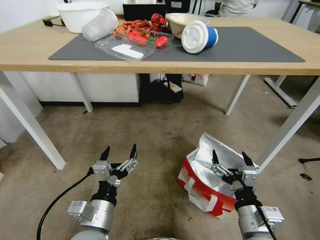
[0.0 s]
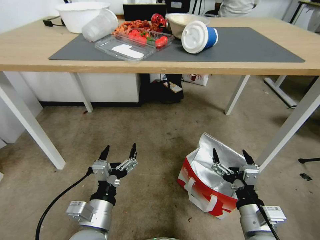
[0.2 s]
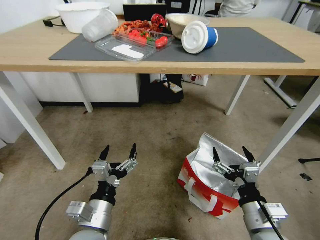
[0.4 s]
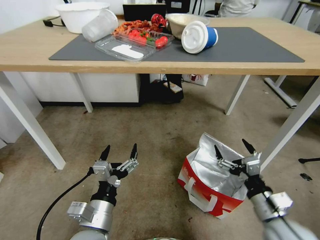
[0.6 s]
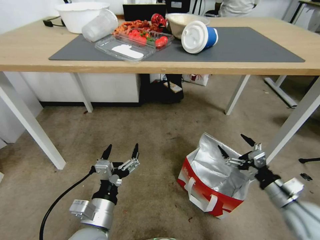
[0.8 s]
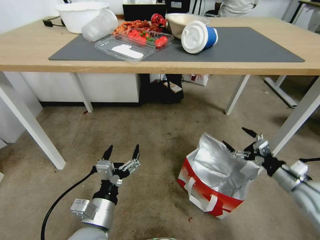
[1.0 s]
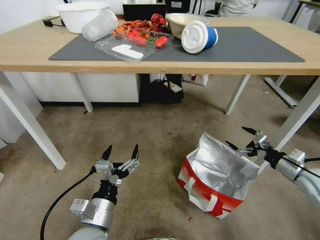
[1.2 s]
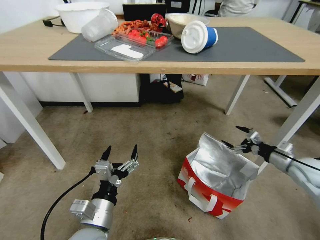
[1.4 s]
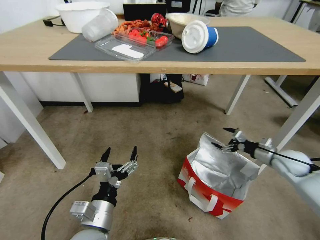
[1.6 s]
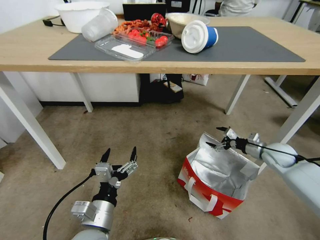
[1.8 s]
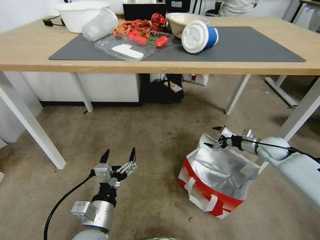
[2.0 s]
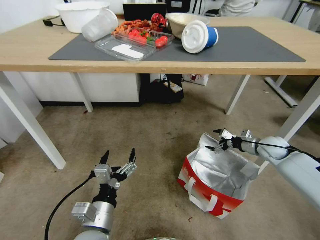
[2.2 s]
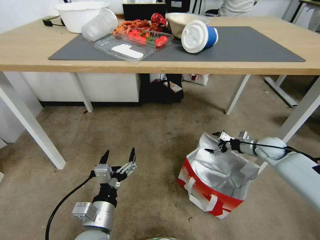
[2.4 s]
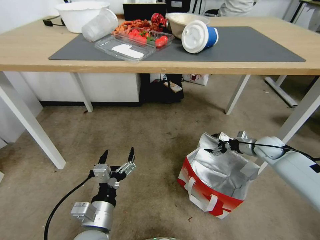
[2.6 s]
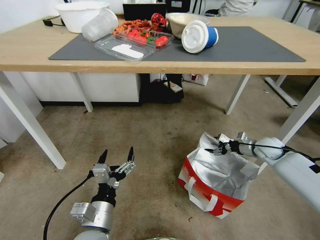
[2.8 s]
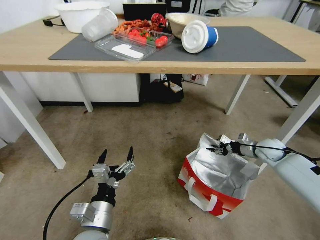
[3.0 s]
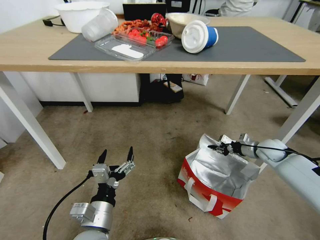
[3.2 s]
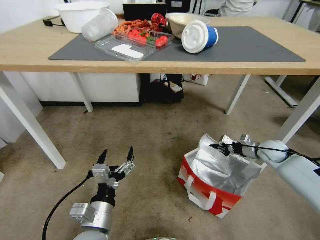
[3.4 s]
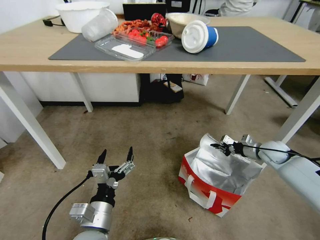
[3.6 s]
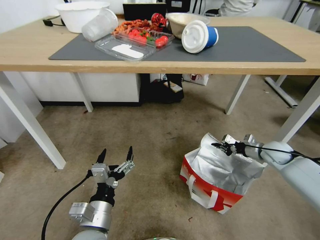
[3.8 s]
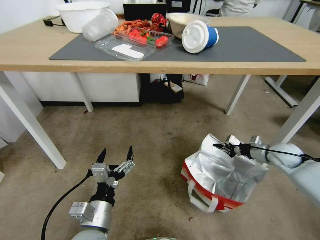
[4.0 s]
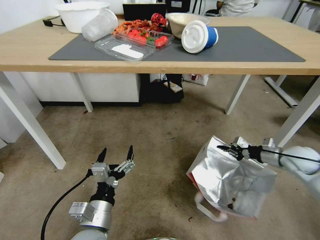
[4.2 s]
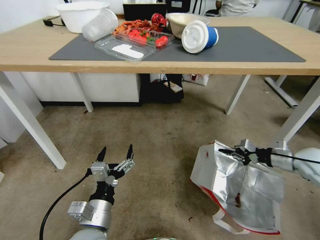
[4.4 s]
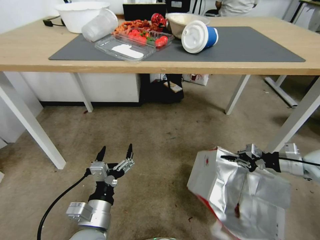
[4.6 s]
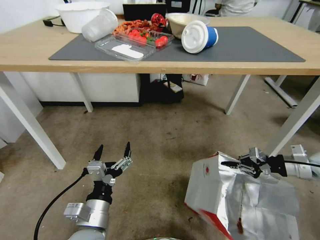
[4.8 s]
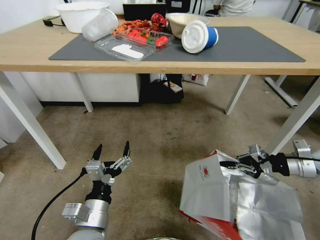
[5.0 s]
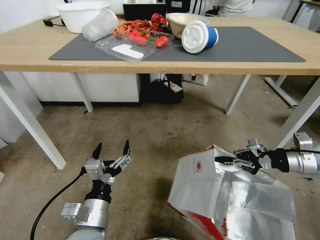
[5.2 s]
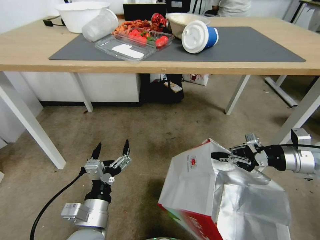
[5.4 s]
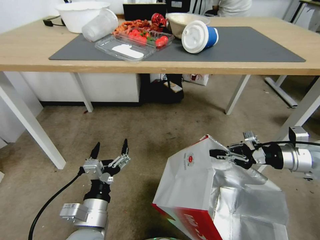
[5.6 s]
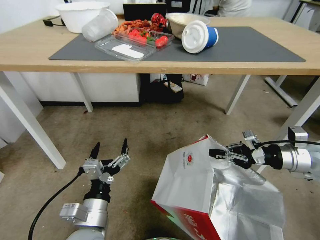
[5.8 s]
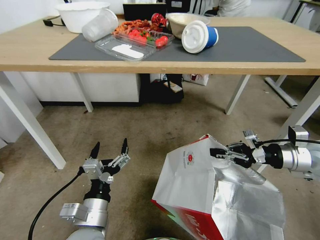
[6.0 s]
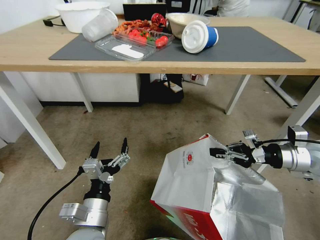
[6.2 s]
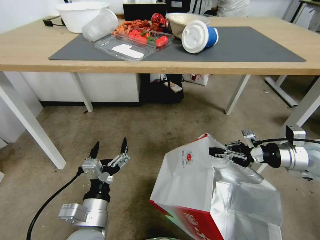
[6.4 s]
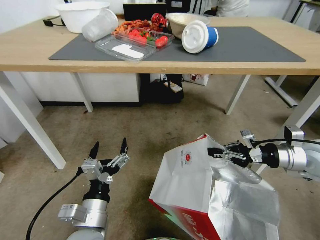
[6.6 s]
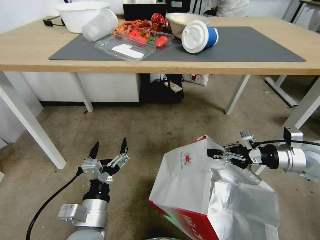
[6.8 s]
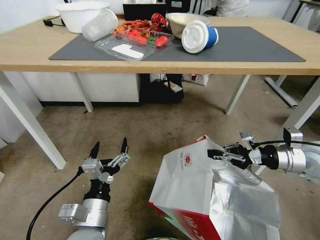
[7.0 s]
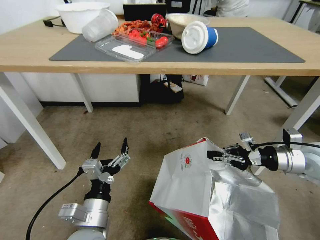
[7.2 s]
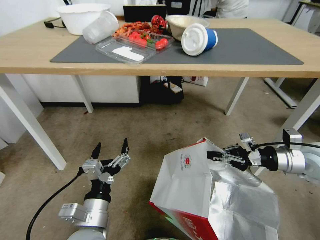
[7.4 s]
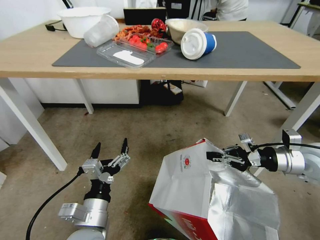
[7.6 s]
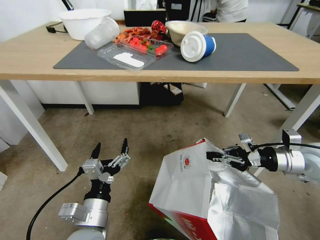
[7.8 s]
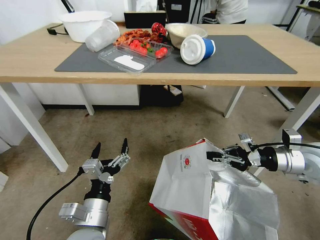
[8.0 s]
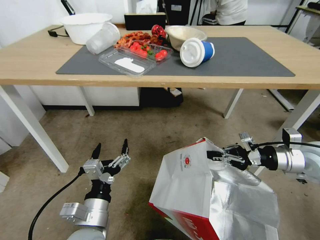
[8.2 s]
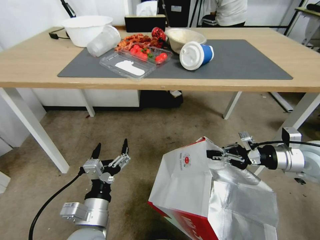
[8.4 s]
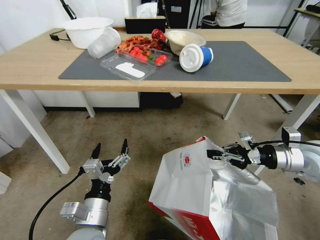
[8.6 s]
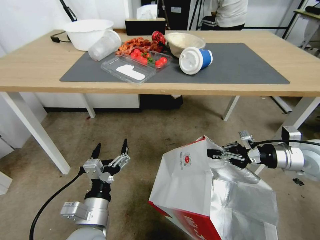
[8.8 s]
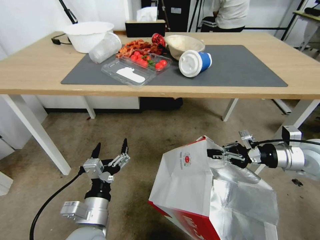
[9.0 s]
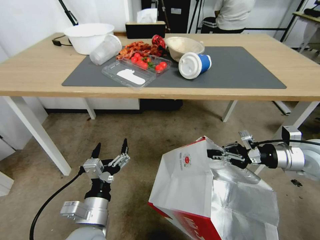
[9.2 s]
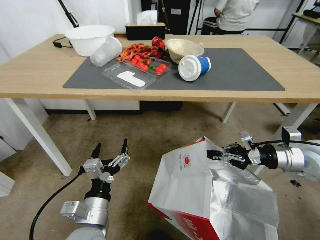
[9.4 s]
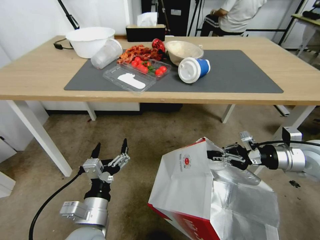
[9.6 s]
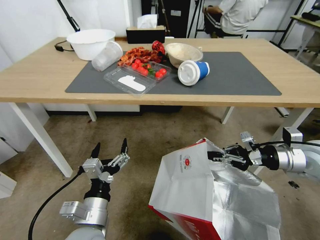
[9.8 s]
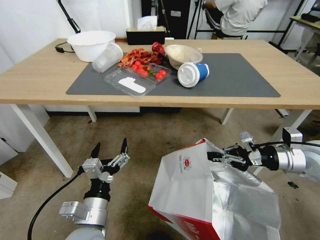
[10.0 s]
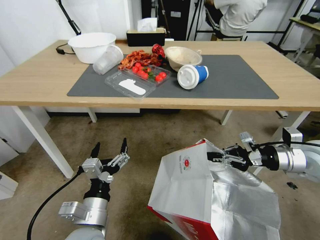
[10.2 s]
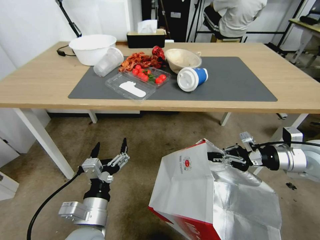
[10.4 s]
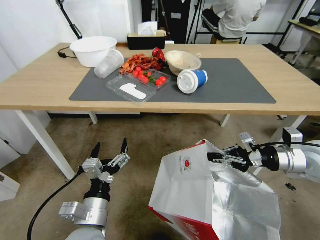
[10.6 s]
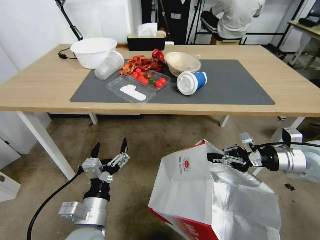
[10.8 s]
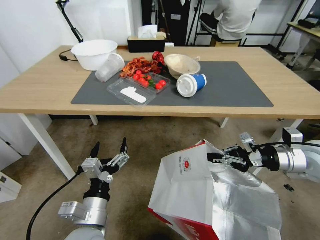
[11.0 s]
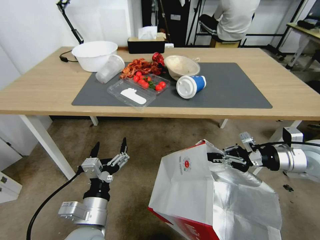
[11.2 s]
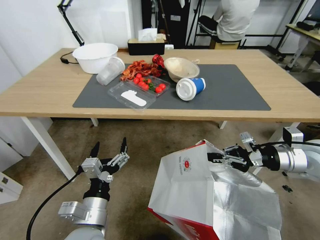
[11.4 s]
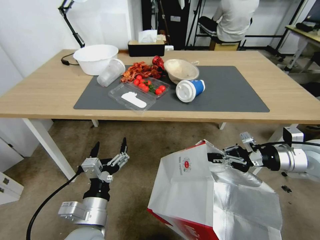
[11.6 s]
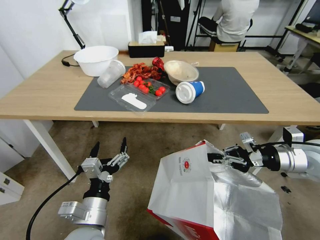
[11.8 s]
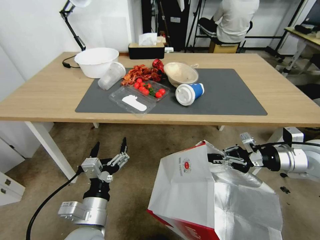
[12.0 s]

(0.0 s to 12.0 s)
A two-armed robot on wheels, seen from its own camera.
Task of the whole recording: Pick up the food delivery bag from the floor and place it on the table.
0.0 s - 1.6 s: The right gripper heads forward and to the right, covering some 35 cm.
1.6 s - 3.0 s: The right gripper is displaced forward by some 5 cm, and closes.
3.0 s - 4.4 s: The right gripper heads backward and upward, covering some 15 cm, and closes up.
4.4 s - 6.0 s: The right gripper travels upward and to the left by some 10 cm.

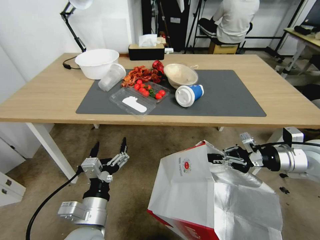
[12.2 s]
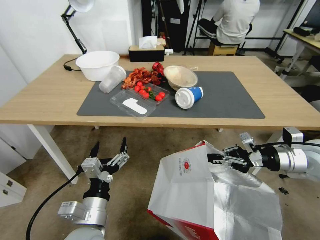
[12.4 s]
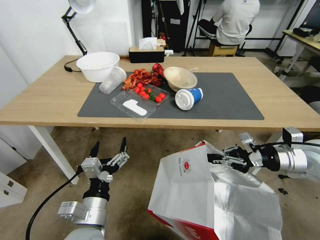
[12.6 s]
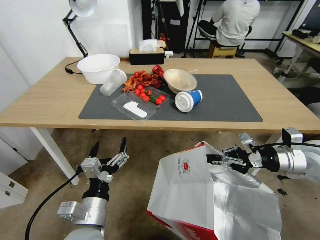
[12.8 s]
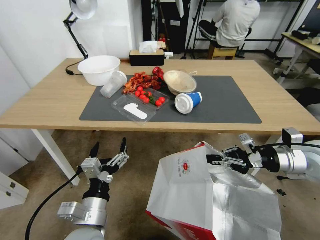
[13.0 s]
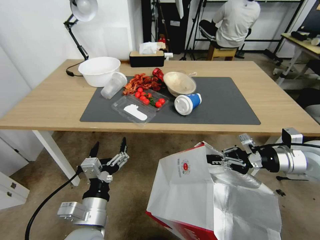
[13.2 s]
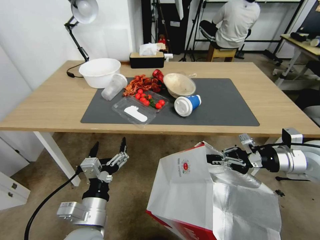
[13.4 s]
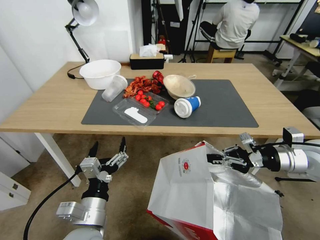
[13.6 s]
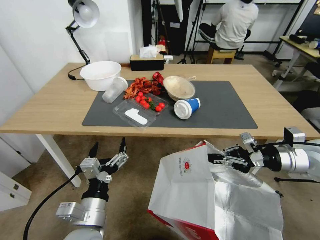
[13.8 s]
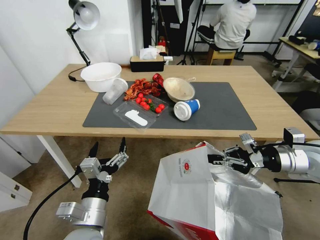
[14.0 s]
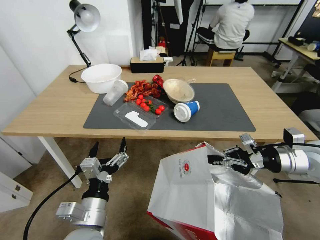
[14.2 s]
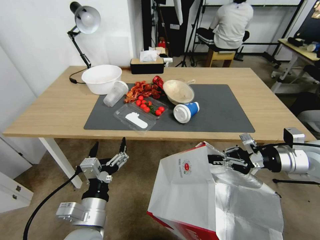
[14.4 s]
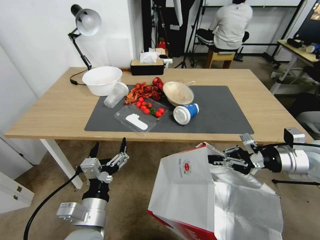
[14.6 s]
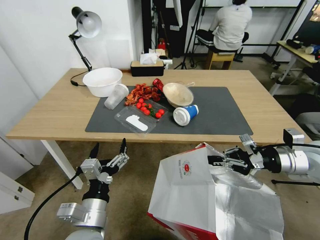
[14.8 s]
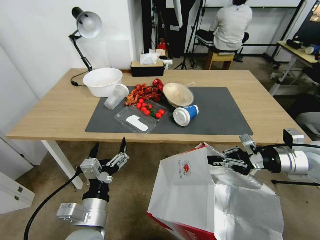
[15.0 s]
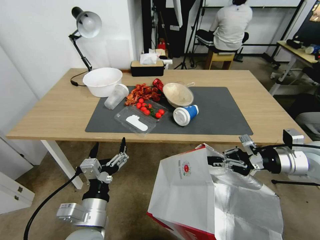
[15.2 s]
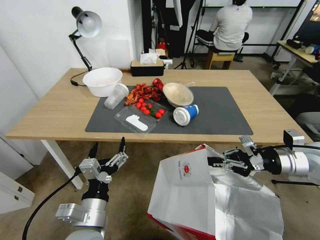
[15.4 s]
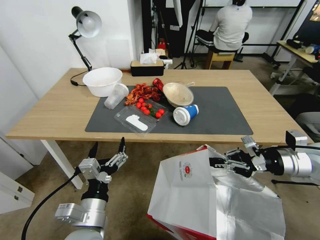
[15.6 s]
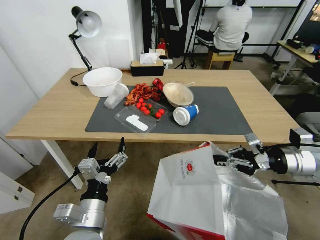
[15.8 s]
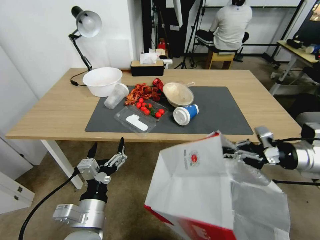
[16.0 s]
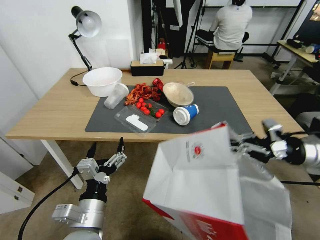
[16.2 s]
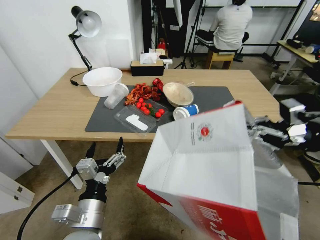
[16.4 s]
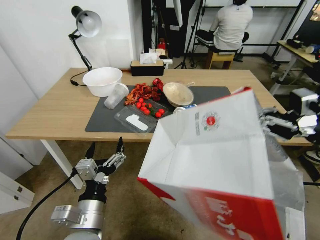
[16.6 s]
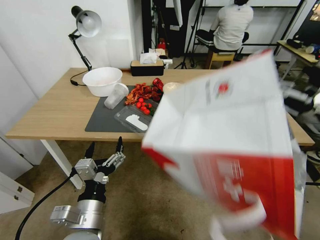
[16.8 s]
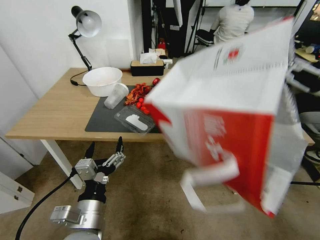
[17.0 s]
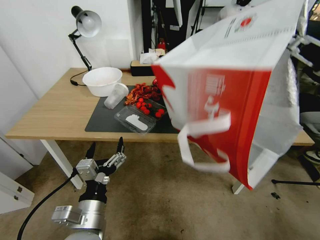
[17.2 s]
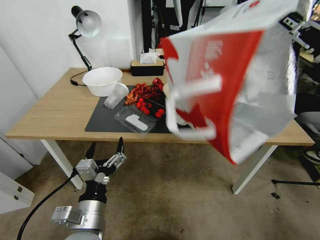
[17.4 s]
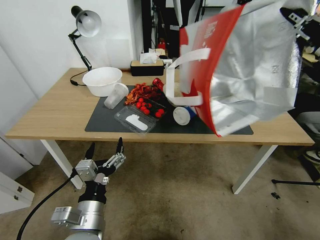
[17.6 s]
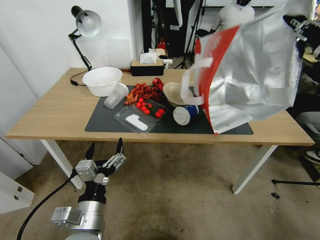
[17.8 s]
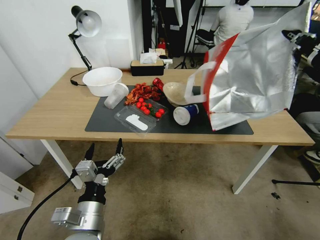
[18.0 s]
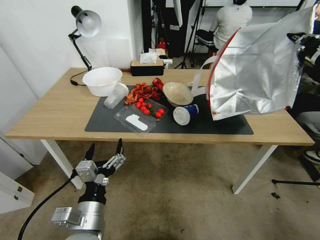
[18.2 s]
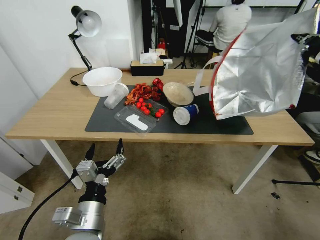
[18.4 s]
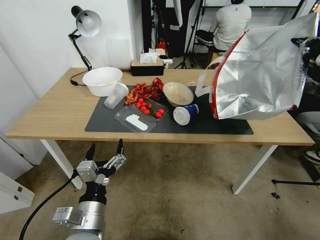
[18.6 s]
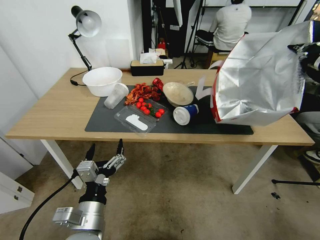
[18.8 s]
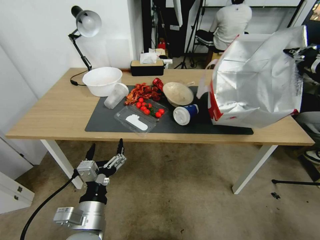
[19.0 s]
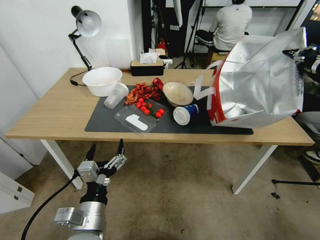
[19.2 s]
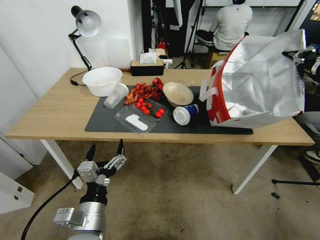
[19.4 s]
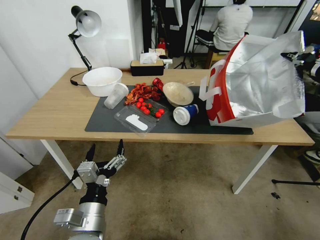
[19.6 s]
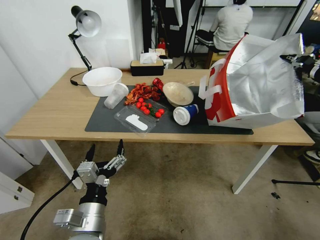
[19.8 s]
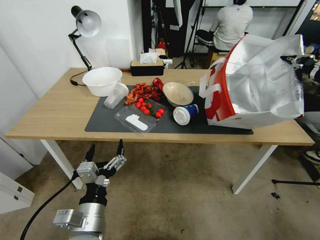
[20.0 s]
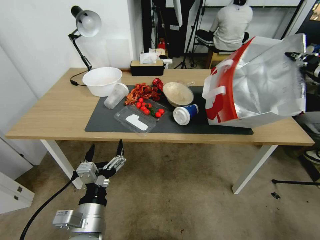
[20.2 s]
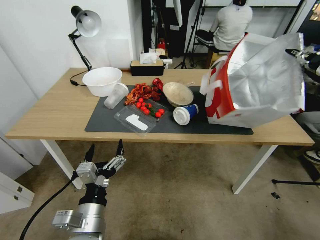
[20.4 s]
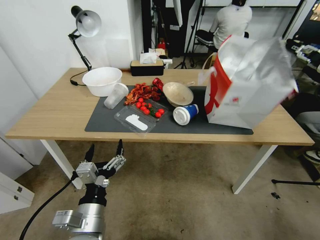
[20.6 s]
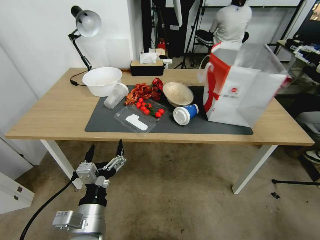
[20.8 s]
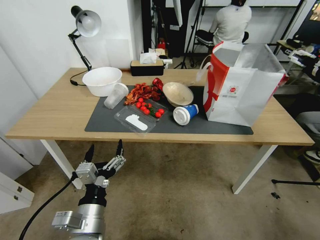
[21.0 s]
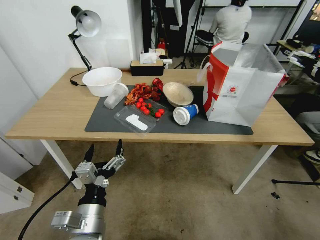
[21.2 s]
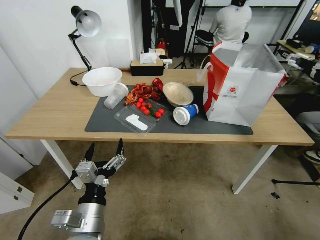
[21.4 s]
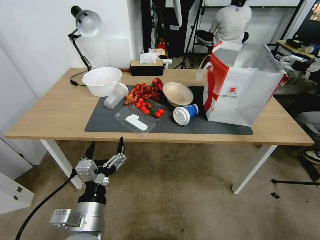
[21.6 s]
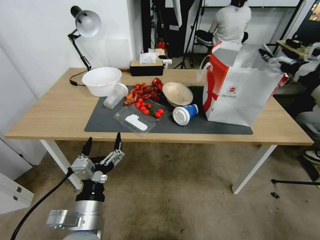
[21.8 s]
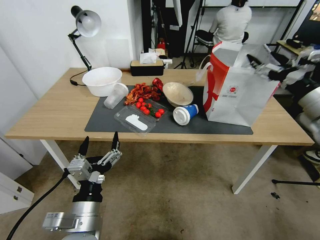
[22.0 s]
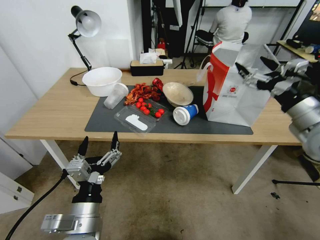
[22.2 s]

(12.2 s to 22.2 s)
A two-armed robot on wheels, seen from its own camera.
Task of the whole recording: Pick up the food delivery bag from the floor and place it on the table.
15.0 s - 16.4 s: The right gripper is displaced upward by roughly 5 cm.
16.4 s - 18.0 s: The right gripper shifts about 10 cm upward.
18.0 s - 19.4 s: The right gripper travels to the right by roughly 10 cm.
19.4 s - 20.8 s: The right gripper opens its fingers.
20.8 s - 22.2 s: The right gripper moves to the left, backward and downward, roughly 15 cm.
